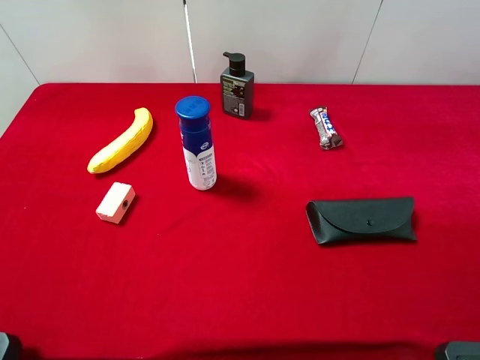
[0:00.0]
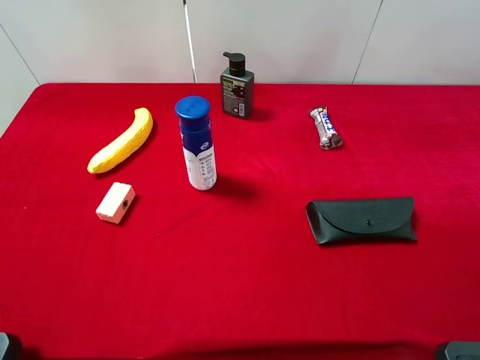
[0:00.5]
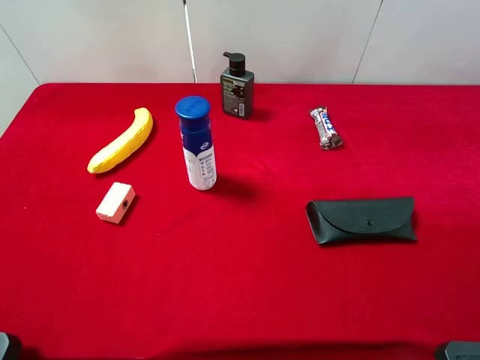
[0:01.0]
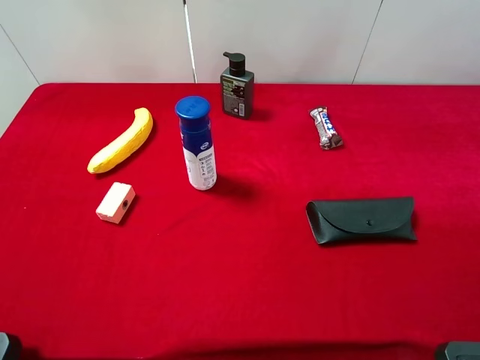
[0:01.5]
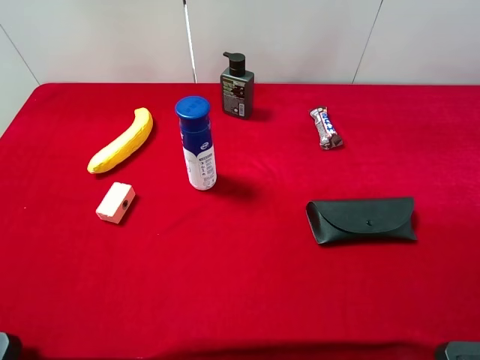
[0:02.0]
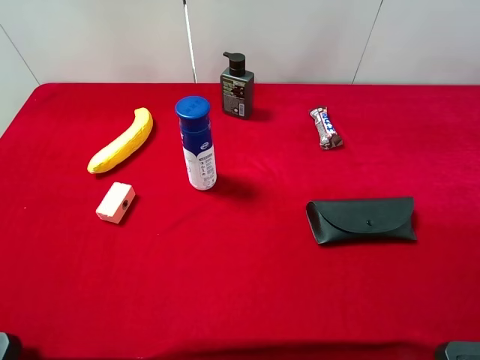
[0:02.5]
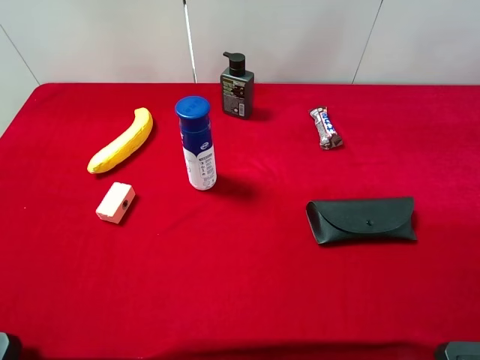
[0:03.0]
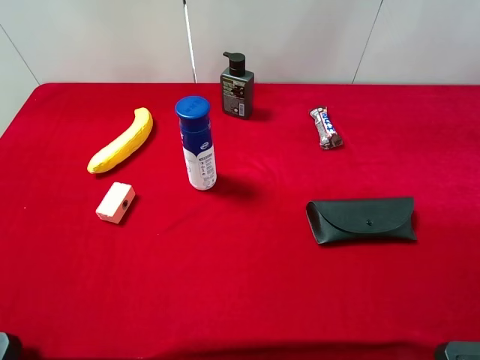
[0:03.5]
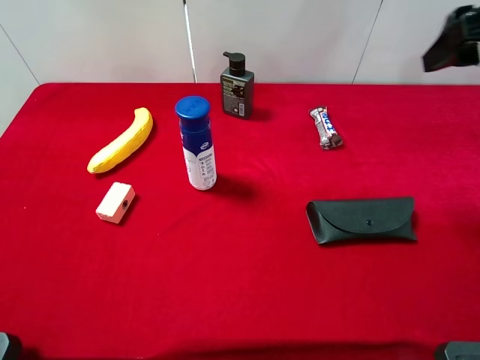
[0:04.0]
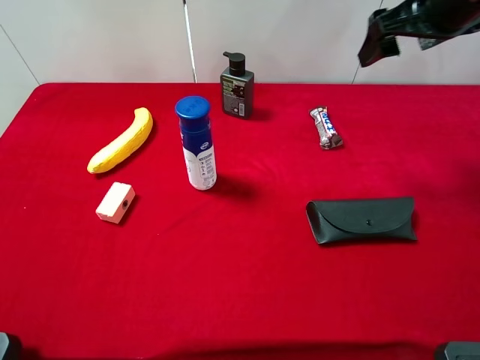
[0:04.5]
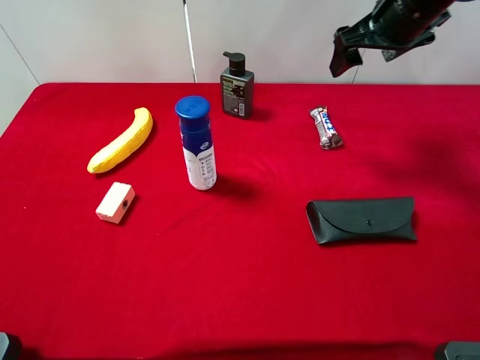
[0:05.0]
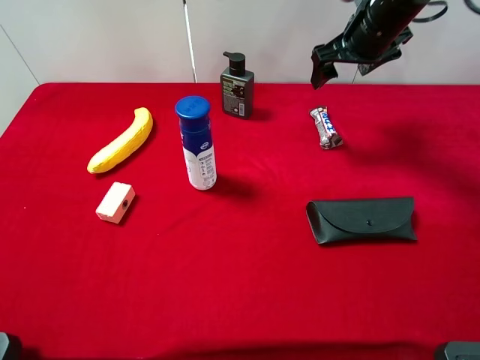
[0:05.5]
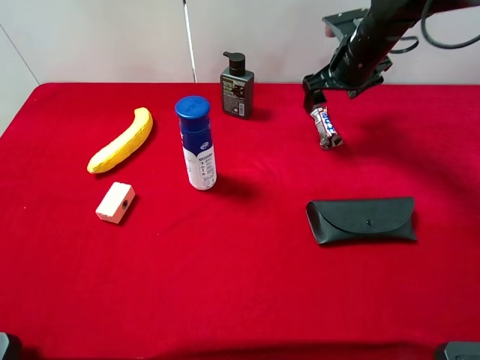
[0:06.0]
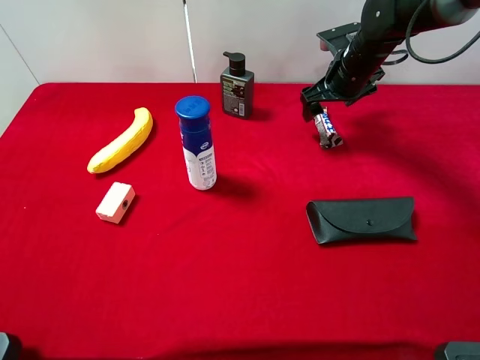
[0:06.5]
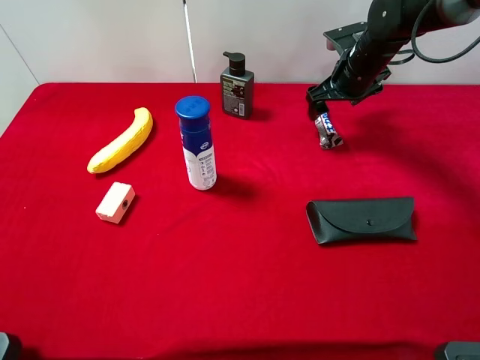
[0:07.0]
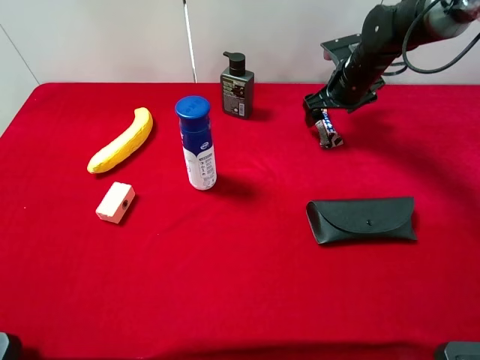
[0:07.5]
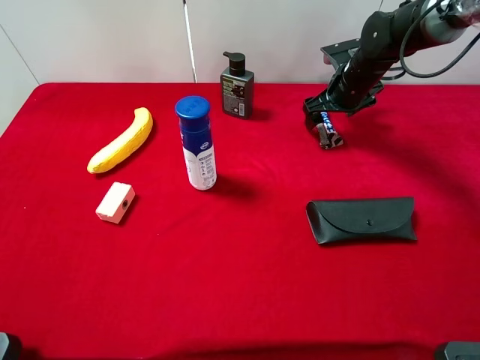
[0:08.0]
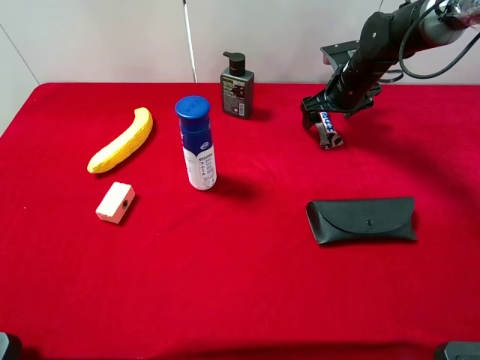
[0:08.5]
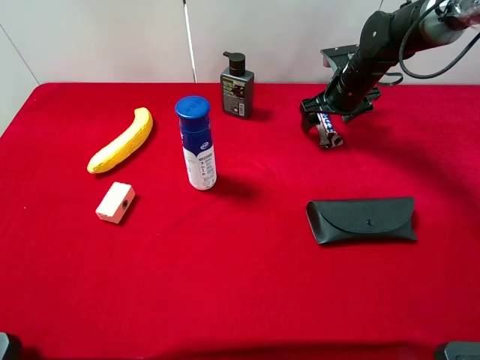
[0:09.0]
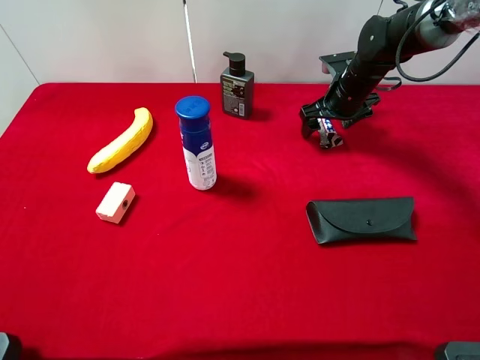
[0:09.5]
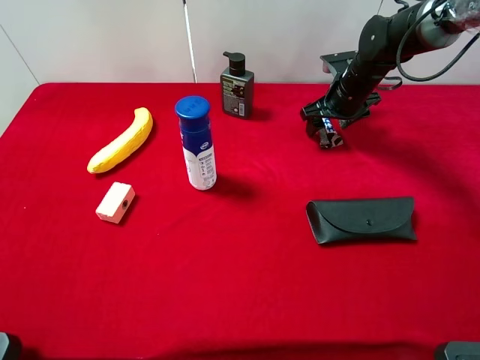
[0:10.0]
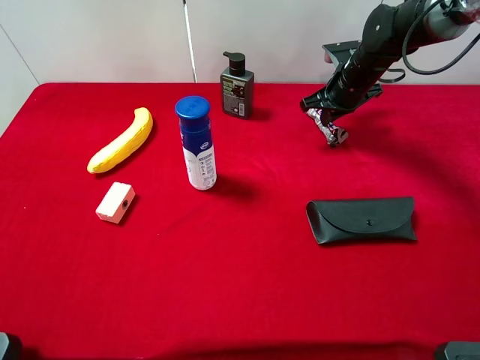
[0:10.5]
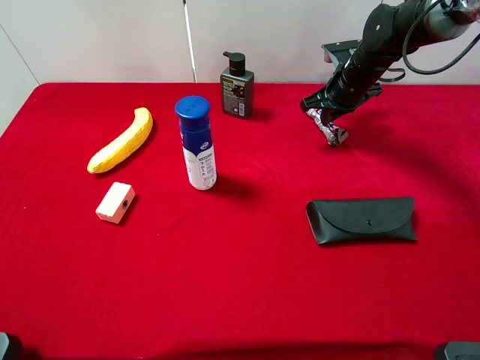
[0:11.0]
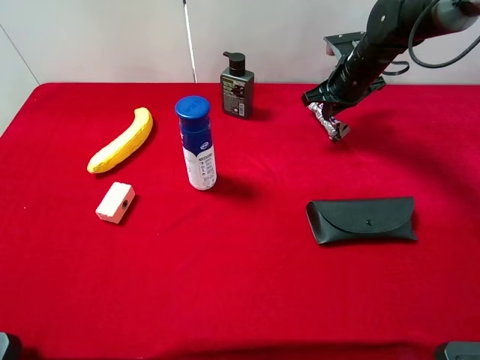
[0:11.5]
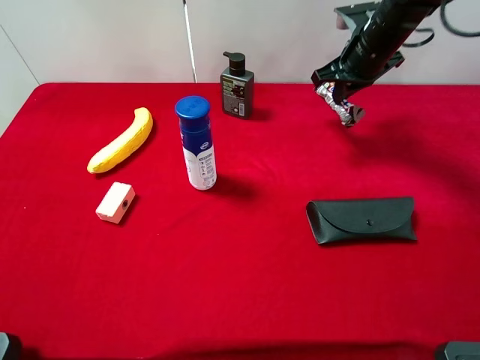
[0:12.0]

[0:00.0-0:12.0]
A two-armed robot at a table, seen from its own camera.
Task of the whole recording: the gripper move the object.
Step, 0.0 to 11.0 s: Grasp the snickers with the right gripper.
0.0 to 2.0 s: Both grippers stay about where they are.
2.0 to 4.0 s: The right gripper is displaced forward by some 25 cm.
4.0 to 6.0 s: The right gripper goes approximately 25 cm forward, downward and to the left.
6.0 to 8.0 s: The right gripper goes some 5 cm downward.
8.0 to 10.0 s: There are only small adjustments of the grippers.
10.0 to 12.0 s: The right gripper heads upward, covering approximately 10 cm, and closes up.

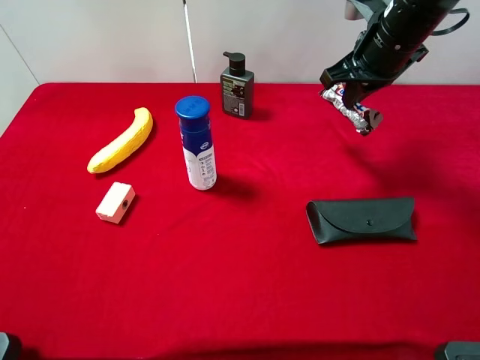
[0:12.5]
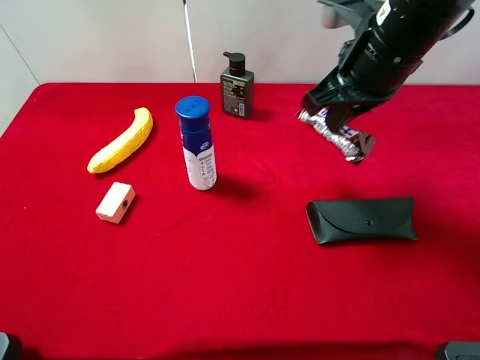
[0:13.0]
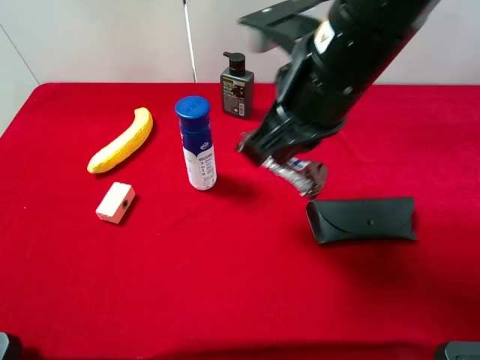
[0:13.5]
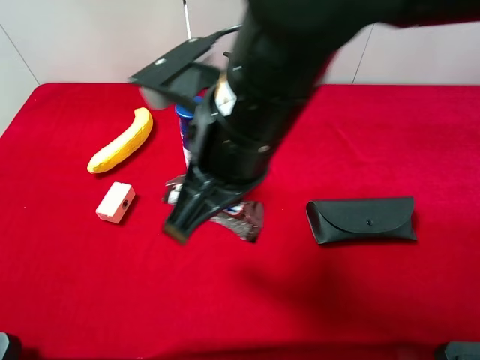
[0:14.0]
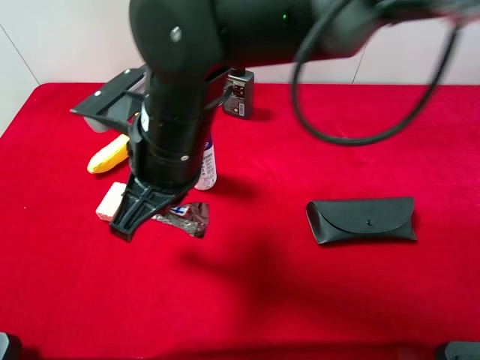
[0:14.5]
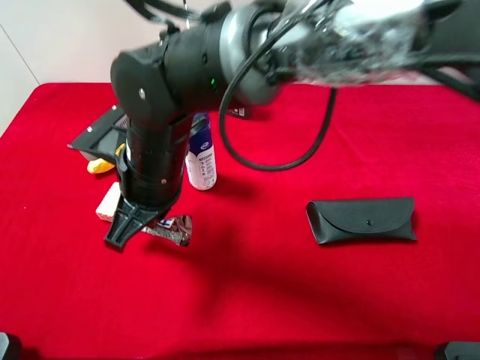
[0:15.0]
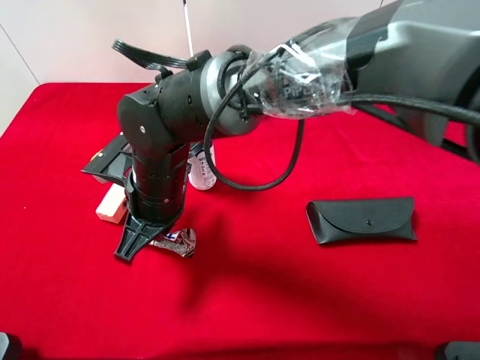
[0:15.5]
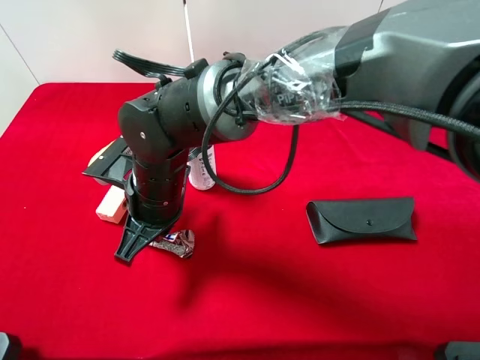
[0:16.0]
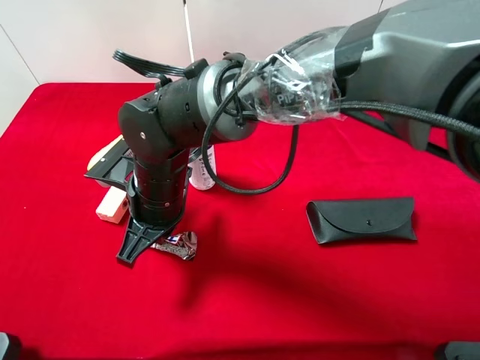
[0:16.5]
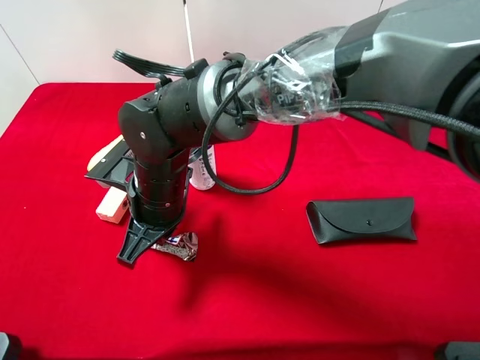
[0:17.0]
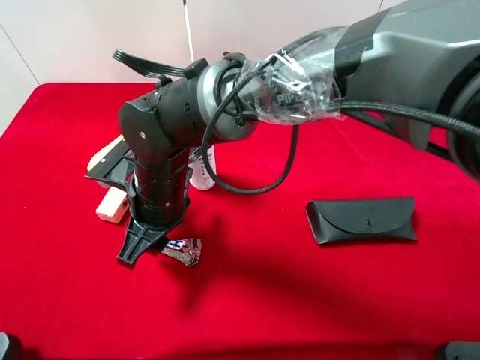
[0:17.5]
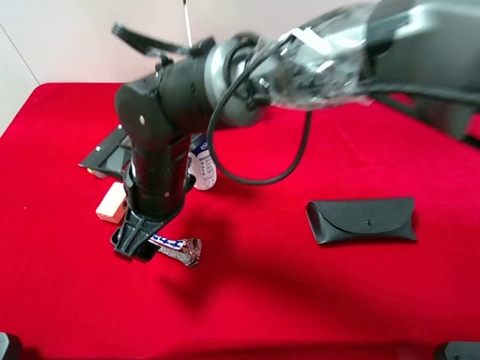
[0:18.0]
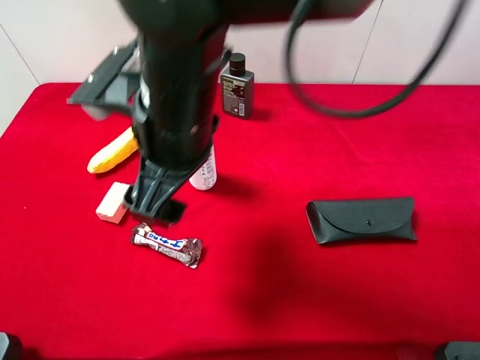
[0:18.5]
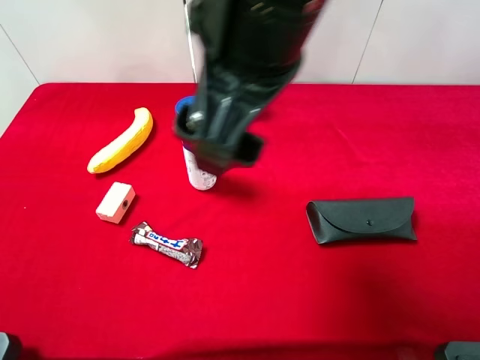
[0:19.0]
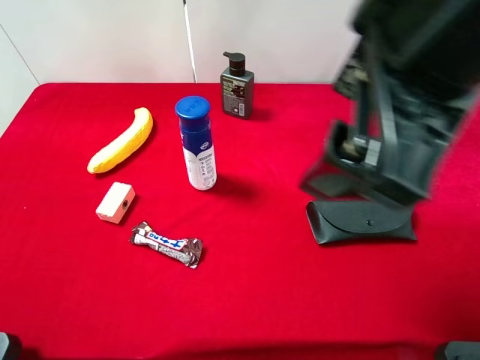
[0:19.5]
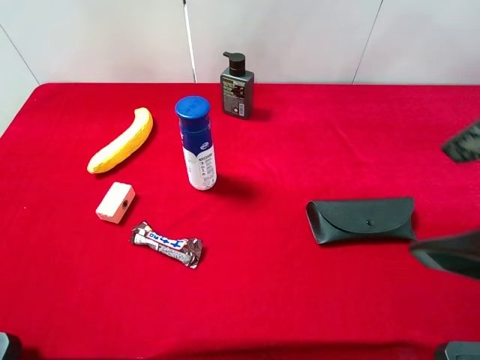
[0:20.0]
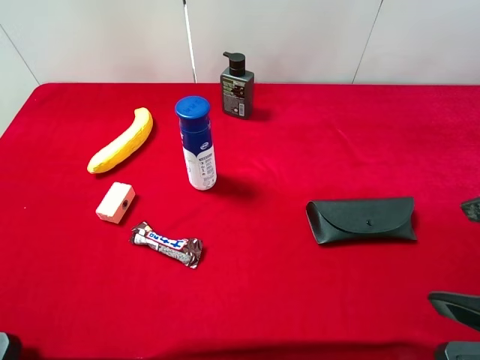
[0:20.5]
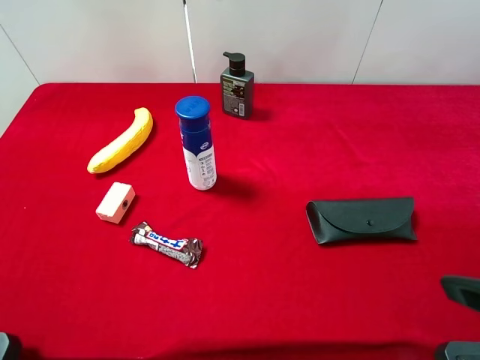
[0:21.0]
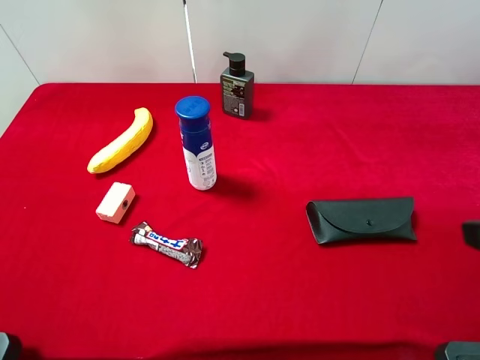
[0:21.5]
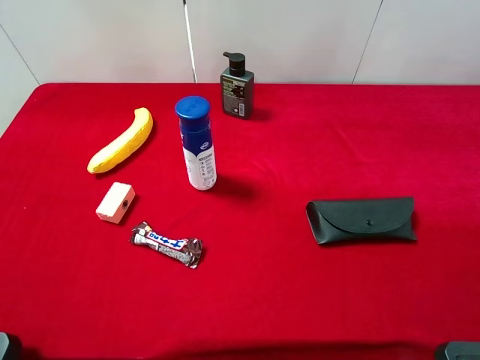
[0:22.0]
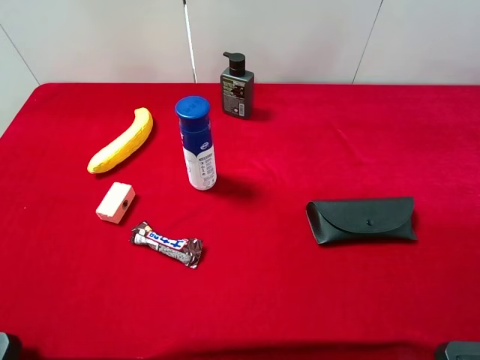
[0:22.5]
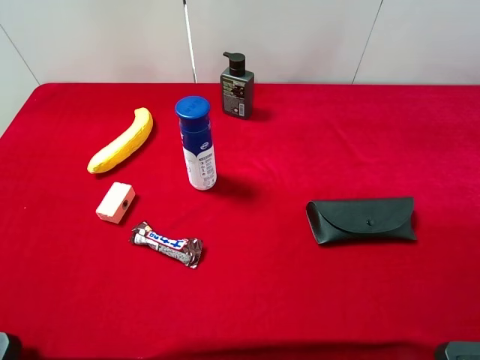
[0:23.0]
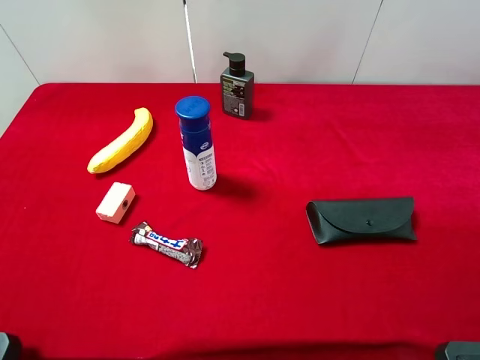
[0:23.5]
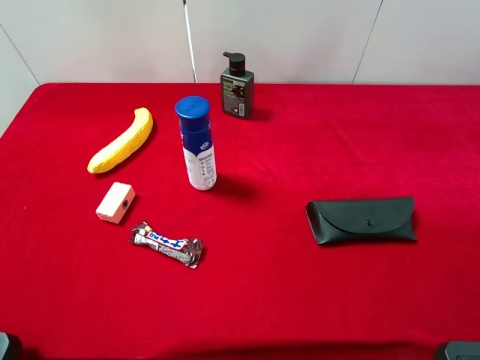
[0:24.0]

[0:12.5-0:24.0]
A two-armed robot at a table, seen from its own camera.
Task of the whole recording: the gripper move the object.
Step, 12.5 to 18.0 s: Place the snickers on the table with the right gripper.
12.5 to 14.5 s: The right gripper is displaced to the left and backward by approximately 30 cm.
14.5 to 16.5 s: The right gripper shifts approximately 10 cm downward.
16.5 to 18.5 s: The right gripper goes approximately 15 cm upward, and opens up.
18.5 to 20.0 s: The right gripper travels to the right and backward by about 25 cm.
20.0 to 22.0 s: The right gripper shifts about 10 cm to the right and downward.

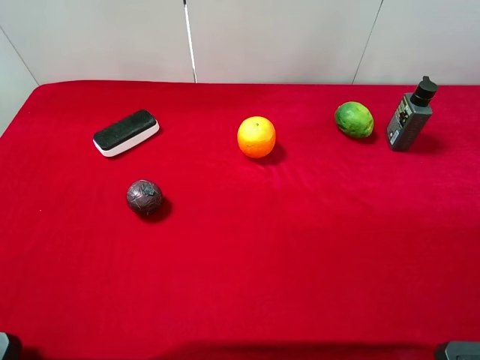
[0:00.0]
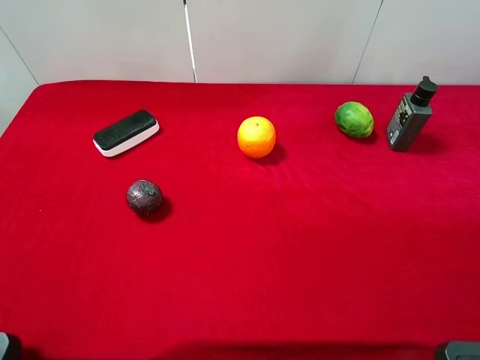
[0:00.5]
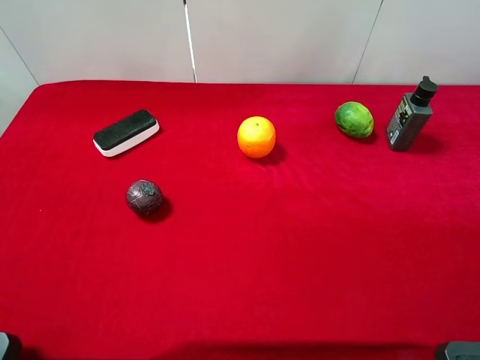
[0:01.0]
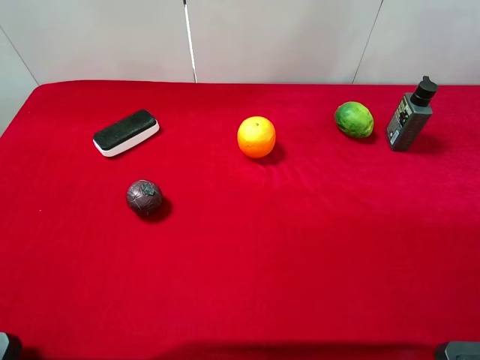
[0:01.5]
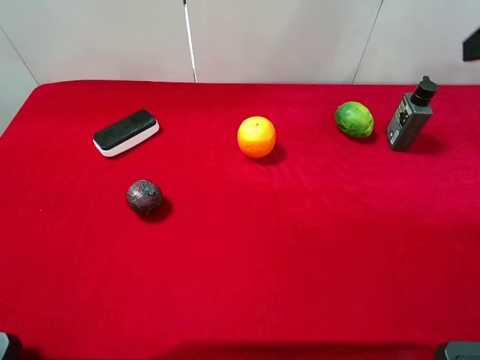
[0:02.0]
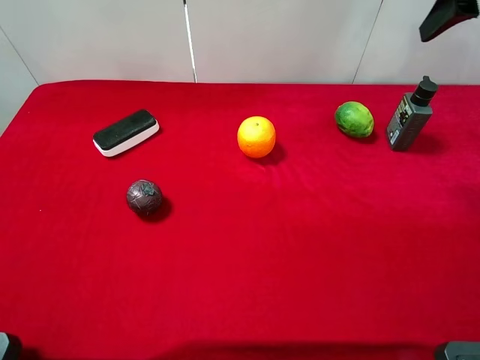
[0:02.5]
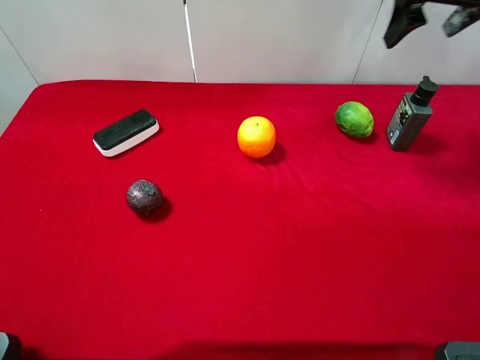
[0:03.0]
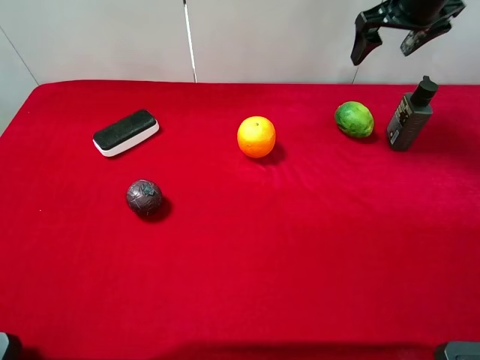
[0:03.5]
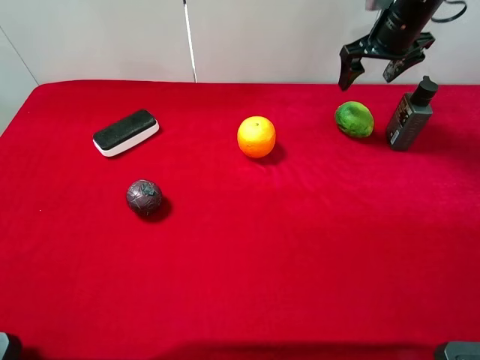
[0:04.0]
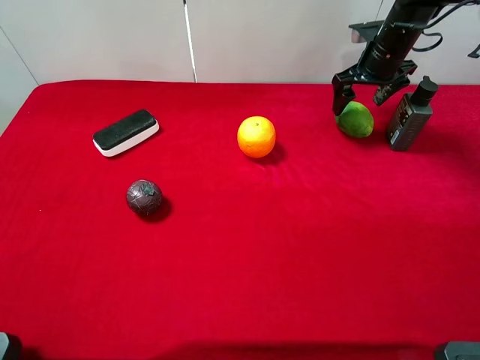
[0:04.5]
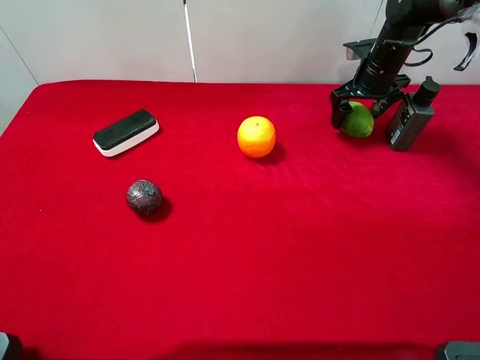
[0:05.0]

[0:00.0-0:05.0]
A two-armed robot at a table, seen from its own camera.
Task of the whole recording: the gripper move the object.
0.0 to 2.5 s: The right gripper shifts approximately 30 cm forward.
2.5 to 5.0 s: The right gripper moves downward and forward, approximately 25 cm.
